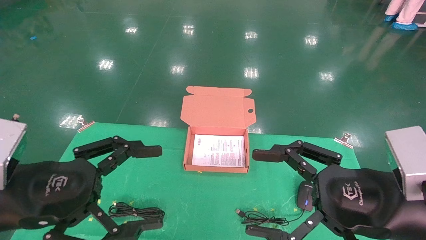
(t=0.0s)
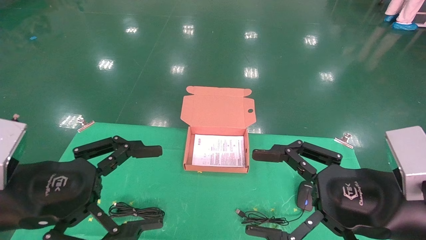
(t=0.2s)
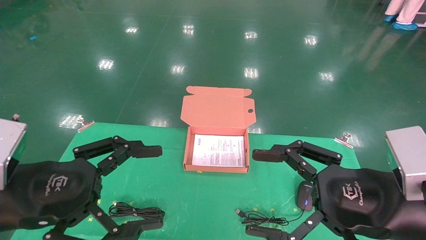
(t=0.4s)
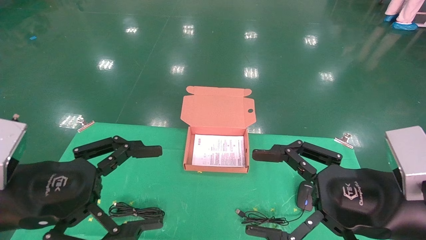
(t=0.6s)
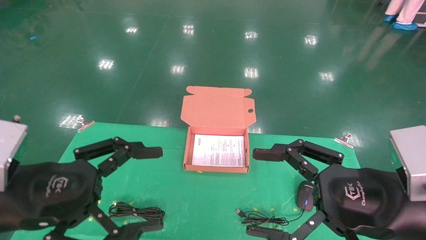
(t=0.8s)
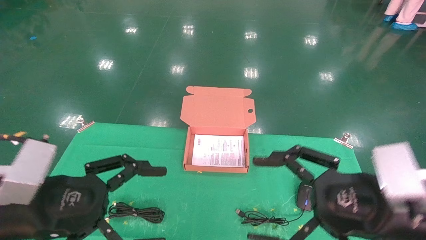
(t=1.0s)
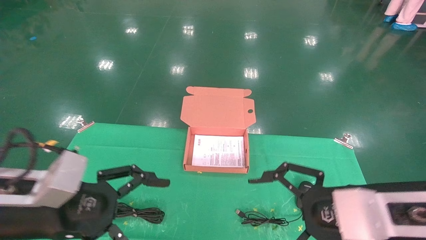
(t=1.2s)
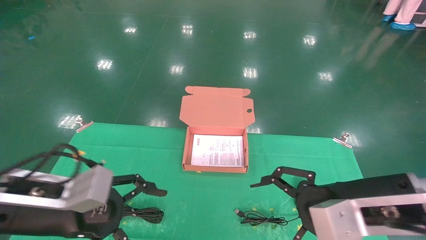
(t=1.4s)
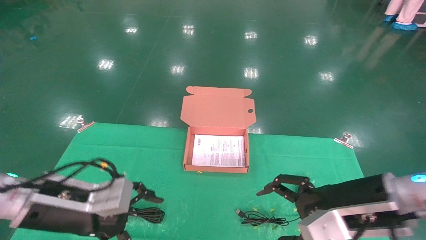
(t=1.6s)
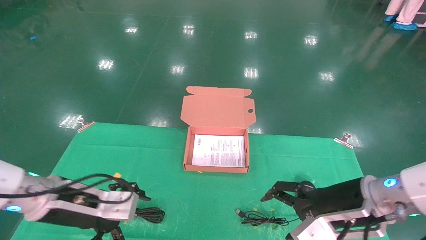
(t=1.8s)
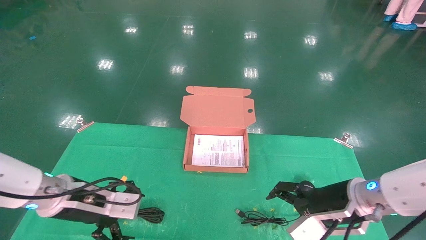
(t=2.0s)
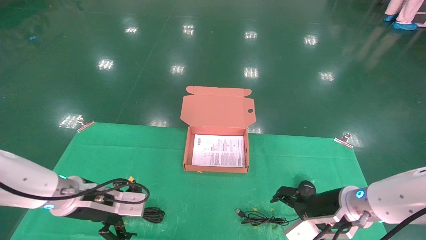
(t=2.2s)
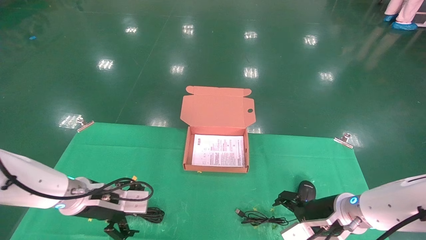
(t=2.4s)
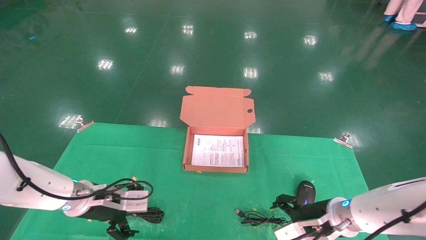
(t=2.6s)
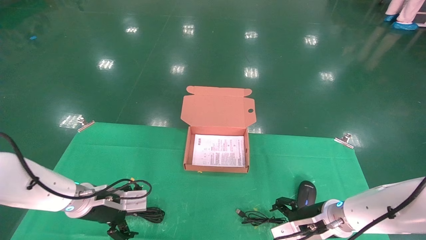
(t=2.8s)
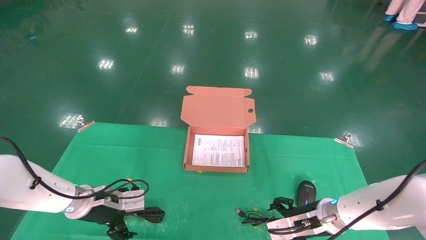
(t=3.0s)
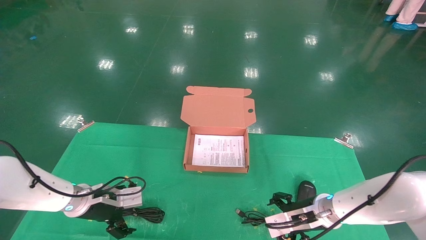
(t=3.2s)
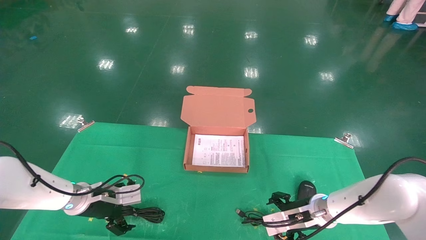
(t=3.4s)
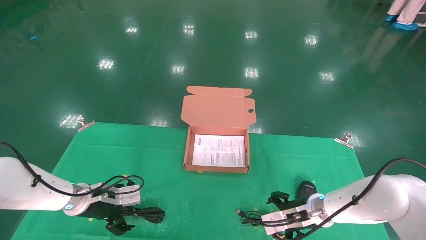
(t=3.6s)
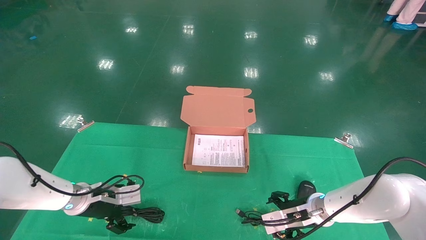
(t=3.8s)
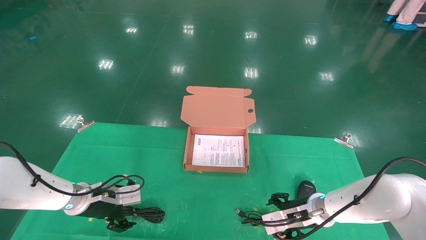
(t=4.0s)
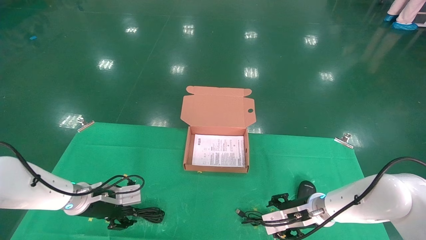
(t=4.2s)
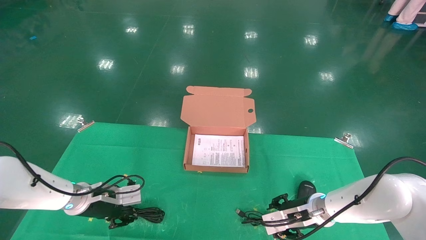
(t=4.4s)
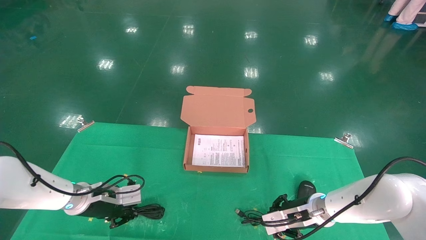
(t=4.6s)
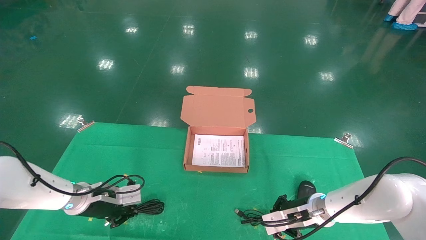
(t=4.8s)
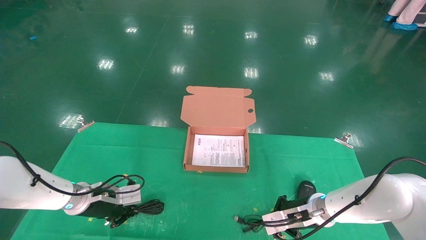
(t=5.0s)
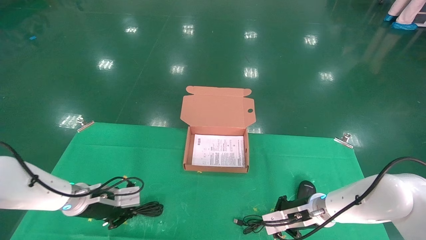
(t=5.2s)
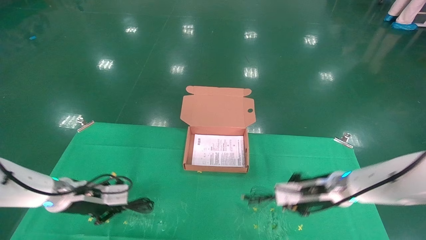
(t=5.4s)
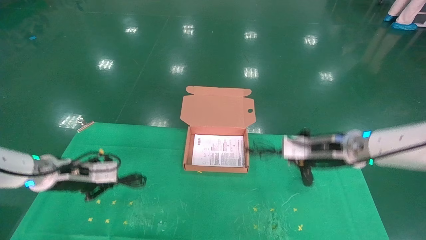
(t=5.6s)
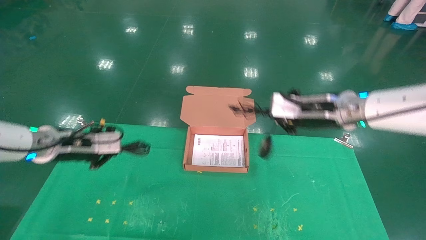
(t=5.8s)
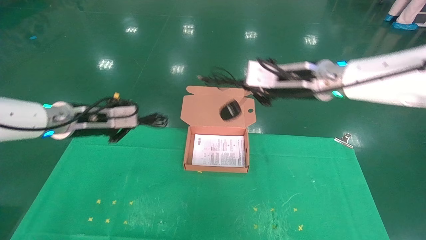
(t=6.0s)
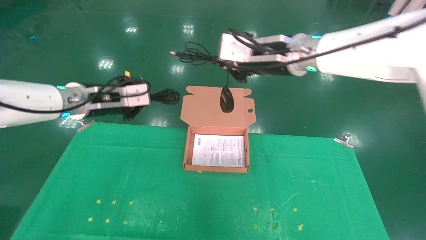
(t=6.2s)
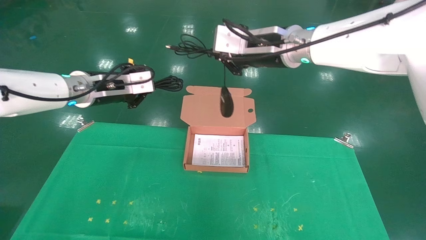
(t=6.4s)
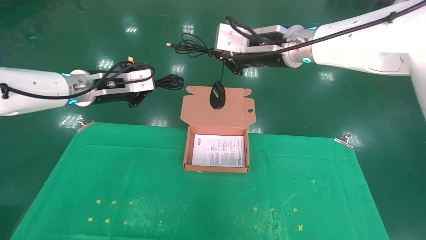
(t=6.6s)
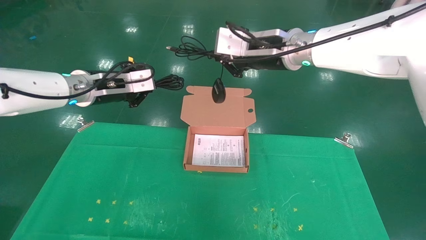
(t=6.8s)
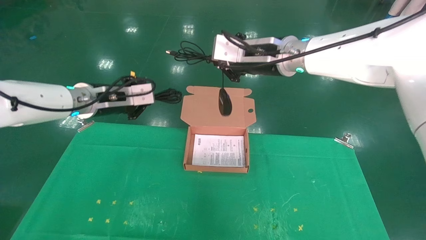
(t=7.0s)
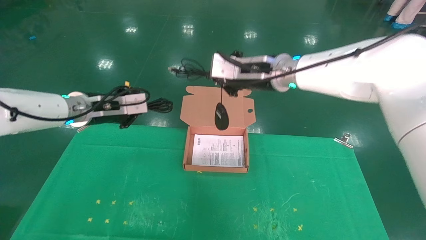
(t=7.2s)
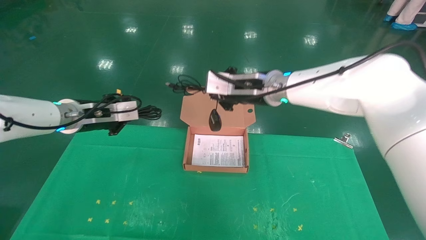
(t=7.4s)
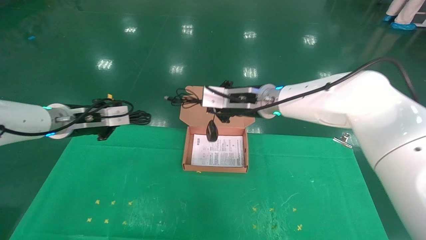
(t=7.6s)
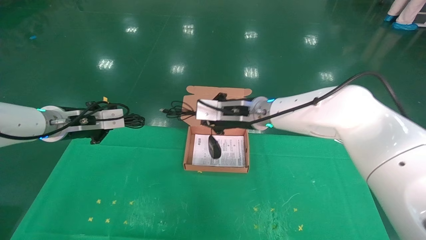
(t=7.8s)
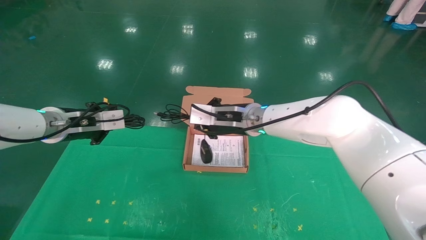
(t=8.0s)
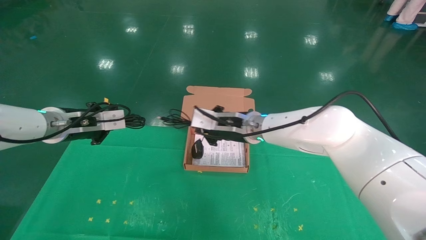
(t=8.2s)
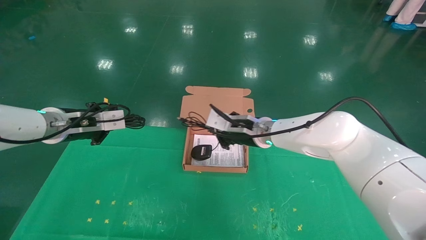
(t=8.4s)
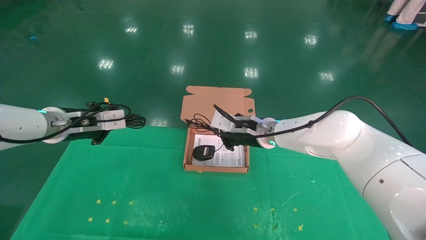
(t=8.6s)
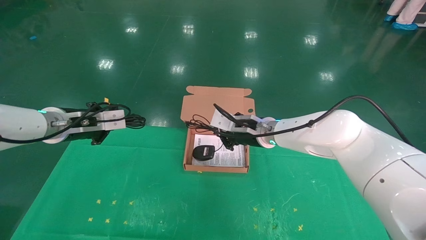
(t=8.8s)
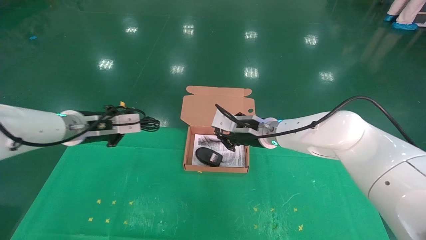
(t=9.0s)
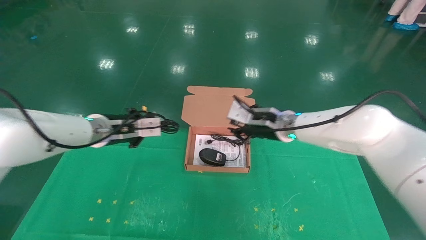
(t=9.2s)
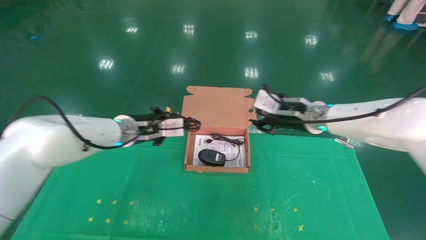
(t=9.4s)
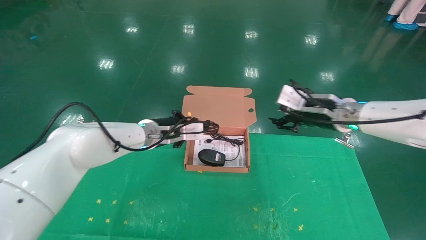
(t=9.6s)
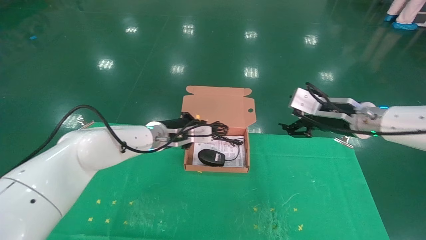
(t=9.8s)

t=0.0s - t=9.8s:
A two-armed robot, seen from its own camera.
Task of the whole recording: grasp data cable left put into box grasp mouse right put into box.
Step, t=1.0s - t=5.2s: Grab and pick up both the mouse and power cord from the accessory packaging area at the same time.
t=0.0s - t=1.4s: The left gripper moves approximately 5 cm.
t=1.4s - t=2.8s: The right gripper goes some 20 cm downward and forward. Meanwhile the left gripper heads forward and downward, covering about 20 cm.
t=2.8s - t=4.2s: The left gripper closes up.
t=4.2s - t=5.6s: The left gripper heads upward, covering about 10 cm, and closes; the right gripper travels upward by about 15 cm, and closes up.
t=5.6s - t=7.0s: The left gripper travels upward and to the right by approximately 20 cm, while the right gripper is displaced upward and to the left by roughly 25 cm.
t=7.0s - t=8.4s: The right gripper shifts approximately 20 cm downward. Meanwhile the left gripper heads downward and to the left, covering some 10 cm.
t=8.4s - t=9.8s: The right gripper goes about 15 cm to the right, and opens its fingers. The left gripper heads to the right and forward, covering approximately 20 cm.

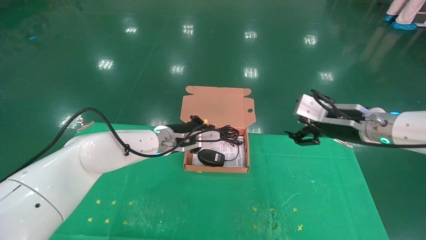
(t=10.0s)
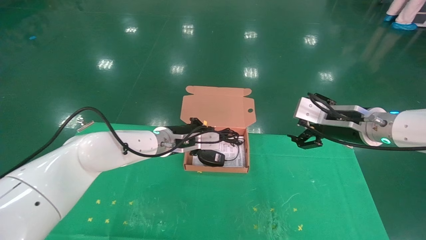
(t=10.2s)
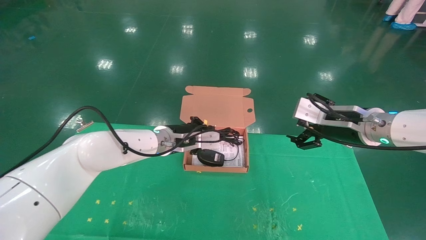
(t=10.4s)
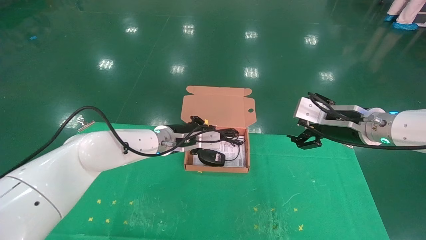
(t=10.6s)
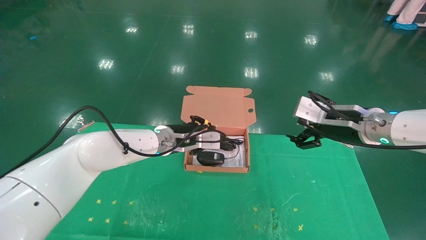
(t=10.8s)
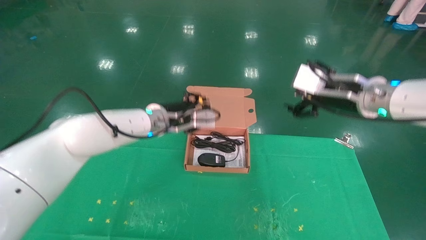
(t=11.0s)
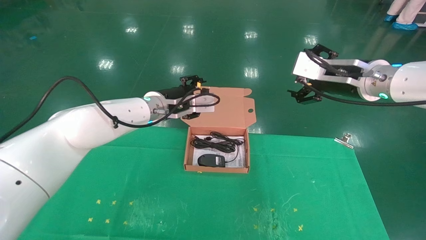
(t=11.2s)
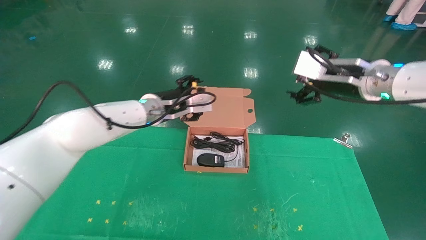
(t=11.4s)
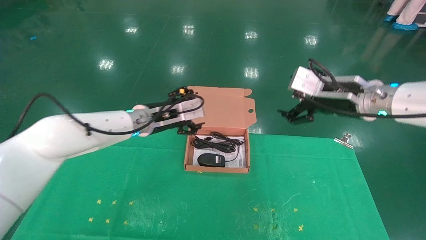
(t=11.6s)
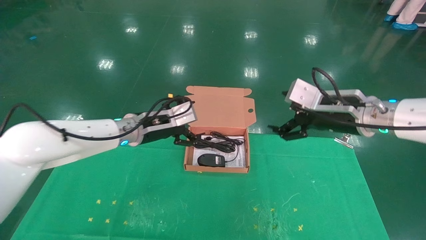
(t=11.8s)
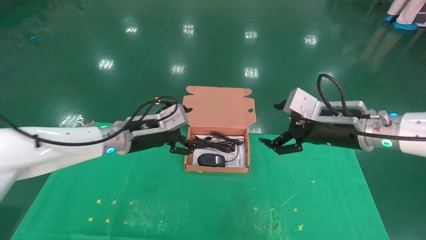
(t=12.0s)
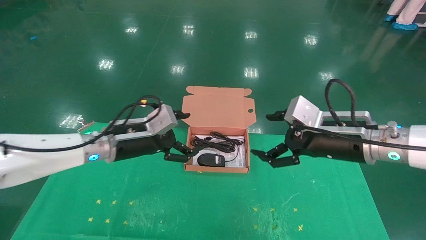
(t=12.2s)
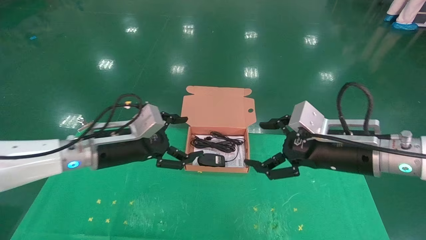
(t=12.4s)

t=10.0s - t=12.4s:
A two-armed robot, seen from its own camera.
Task of the whole recording: grasp data cable left put into box grasp mouse right put into box.
t=10.0s - t=11.2s: The two grippers go some 5 cm upward. The left gripper opens up.
t=11.2s - t=12.4s: The right gripper moves downward and backward, approximately 10 cm; the left gripper shifts some 15 cm backward and to the left, and opens.
